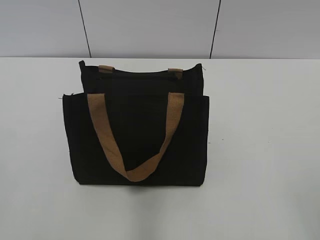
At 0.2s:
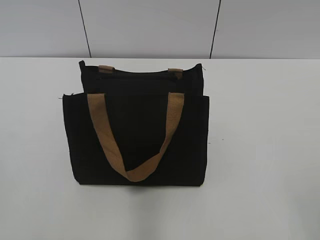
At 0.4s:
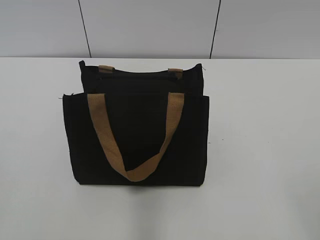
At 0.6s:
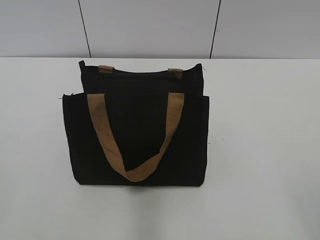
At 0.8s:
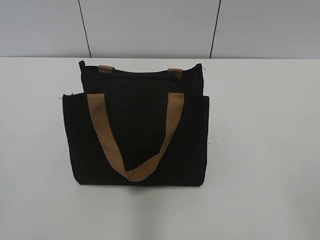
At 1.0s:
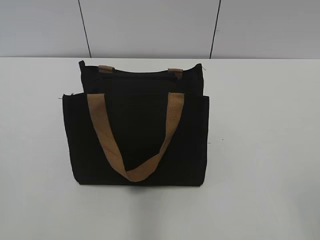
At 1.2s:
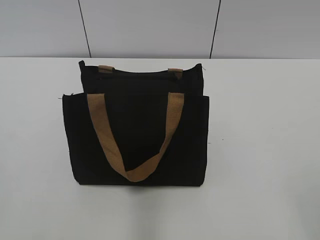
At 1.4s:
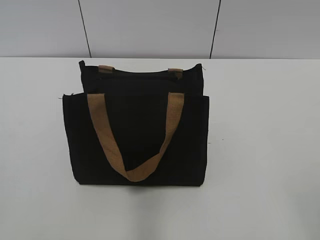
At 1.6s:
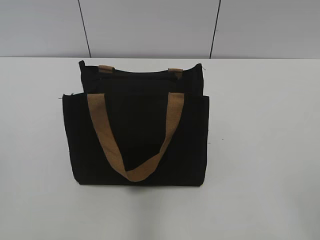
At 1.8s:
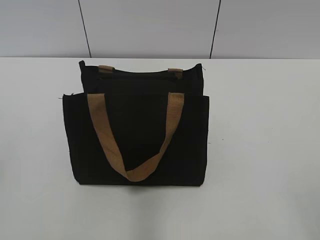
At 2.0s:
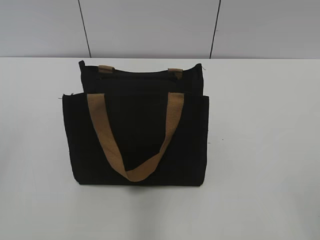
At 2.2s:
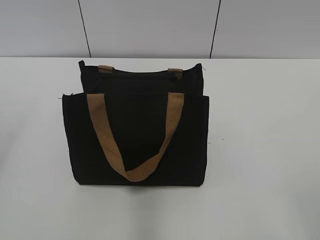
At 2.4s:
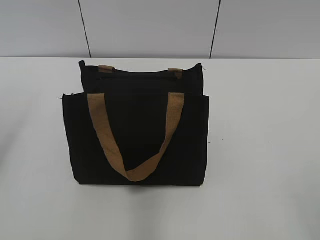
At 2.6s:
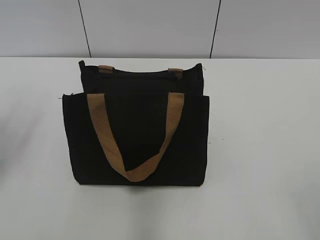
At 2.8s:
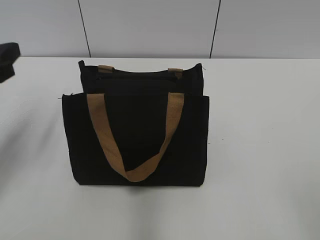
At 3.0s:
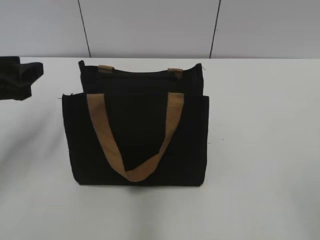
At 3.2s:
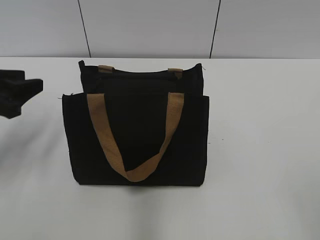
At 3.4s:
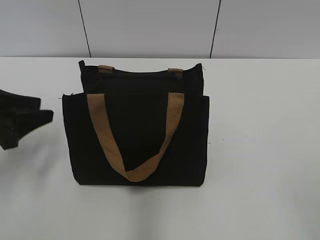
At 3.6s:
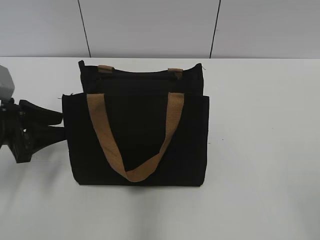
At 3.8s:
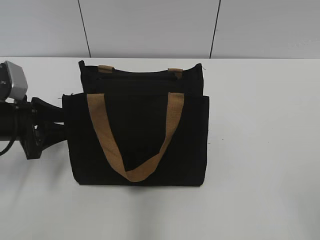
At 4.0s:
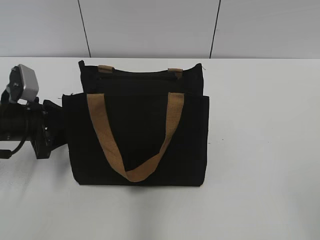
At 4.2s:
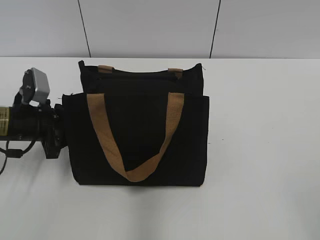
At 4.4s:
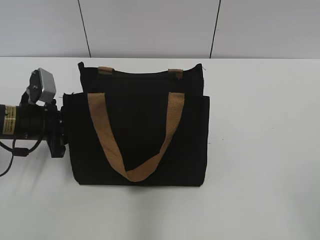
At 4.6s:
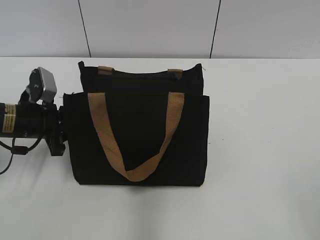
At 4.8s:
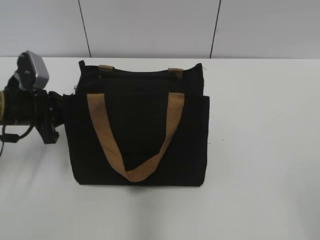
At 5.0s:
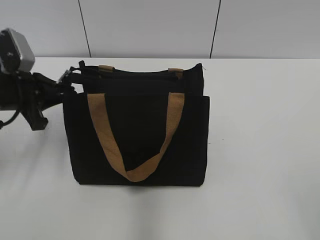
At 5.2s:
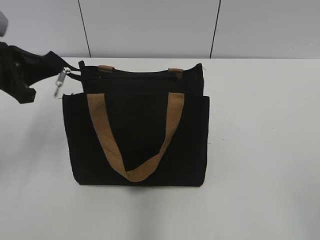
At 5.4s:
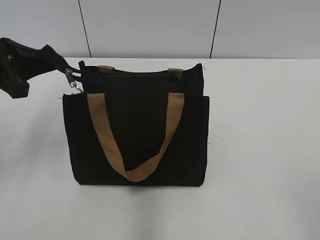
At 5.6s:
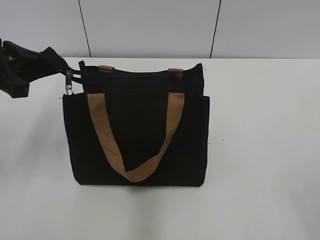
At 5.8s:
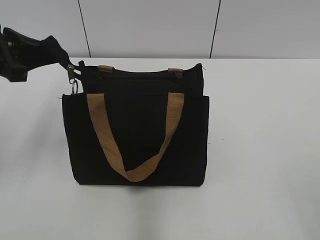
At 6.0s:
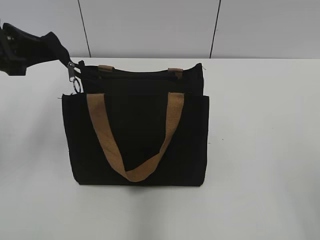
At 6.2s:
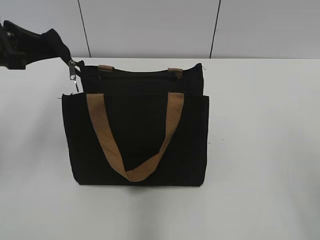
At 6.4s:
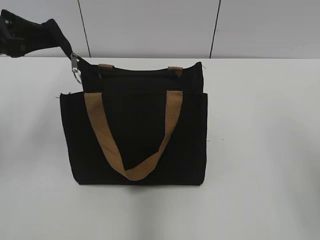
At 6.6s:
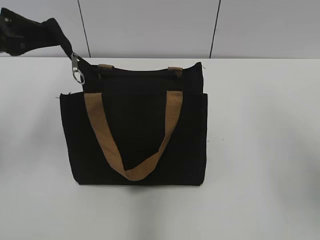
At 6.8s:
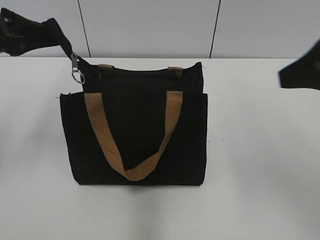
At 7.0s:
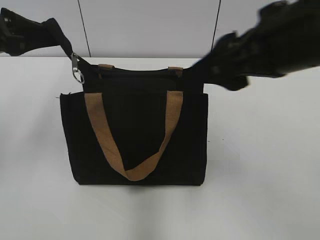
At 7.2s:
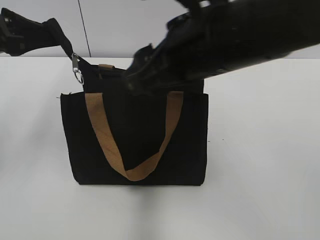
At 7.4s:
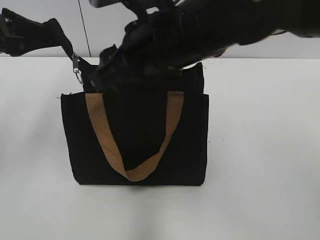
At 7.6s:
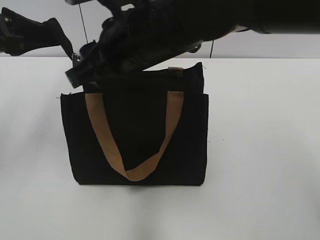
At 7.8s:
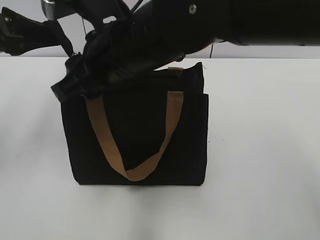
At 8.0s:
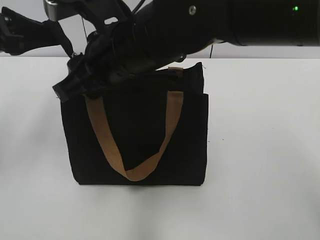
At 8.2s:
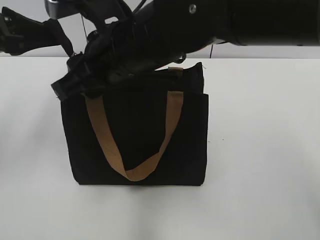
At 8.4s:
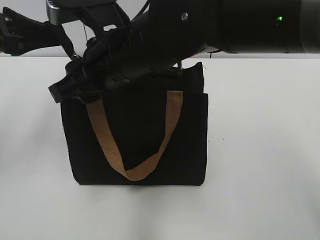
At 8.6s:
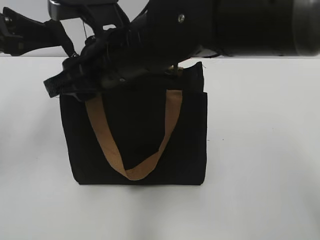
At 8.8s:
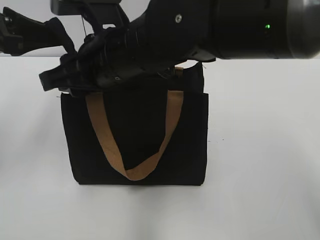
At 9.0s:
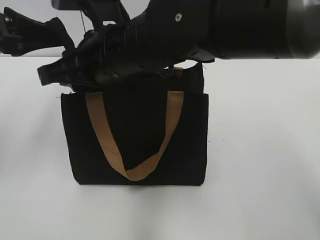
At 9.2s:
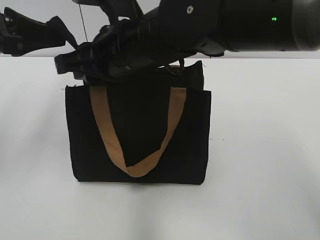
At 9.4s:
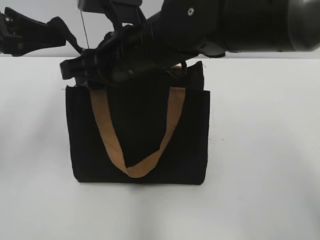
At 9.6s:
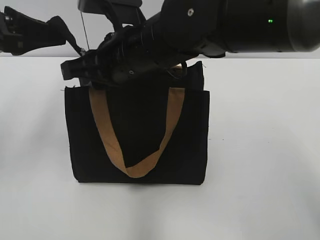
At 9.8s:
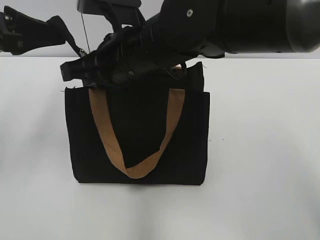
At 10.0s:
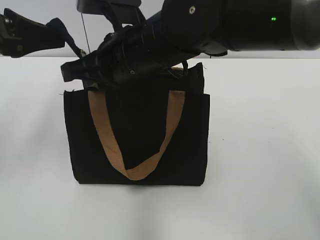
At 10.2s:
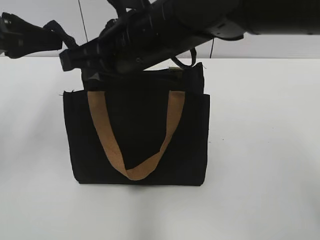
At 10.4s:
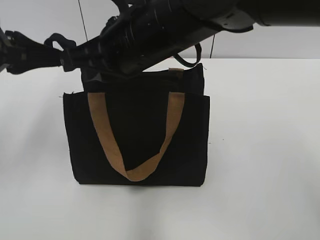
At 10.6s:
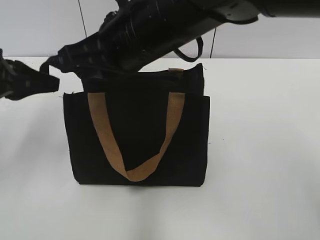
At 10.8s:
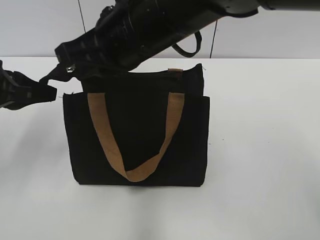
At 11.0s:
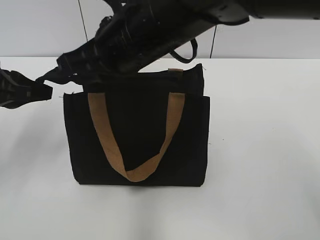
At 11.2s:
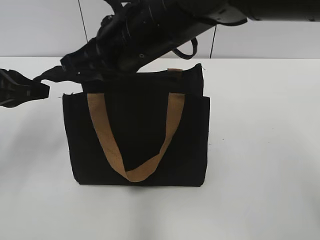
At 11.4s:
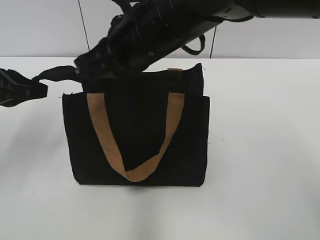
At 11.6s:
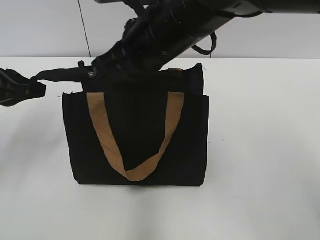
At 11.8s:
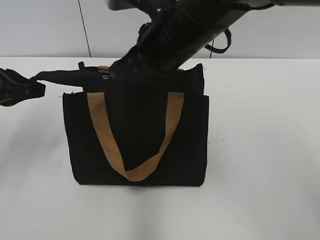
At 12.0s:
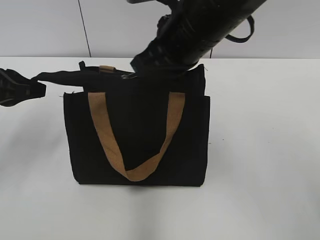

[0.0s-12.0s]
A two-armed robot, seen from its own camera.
1.6s to 3.0s: The left gripper heads forward, covering roughly 25 cm.
3.0s to 4.4s: The left gripper heads downward and forward, covering about 10 cm, and closes its fingers.
4.4s to 6.0s: The left gripper heads upward, covering roughly 15 cm.
6.0s to 7.6s: The right gripper shifts roughly 40 cm to the left and forward.
7.6s to 9.0s: There are only small adjustments of the grippers.
9.0s to 10.4s: The right gripper closes up.
10.4s to 12.0s: The left gripper goes approximately 5 cm downward. The right gripper heads to the right, covering about 5 cm.

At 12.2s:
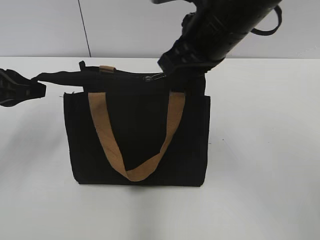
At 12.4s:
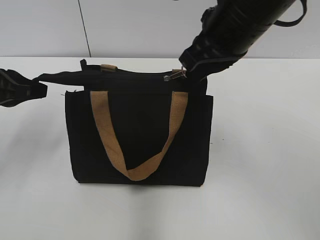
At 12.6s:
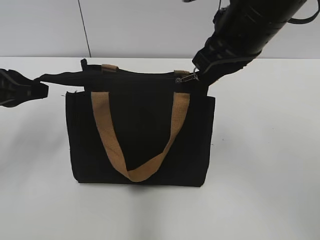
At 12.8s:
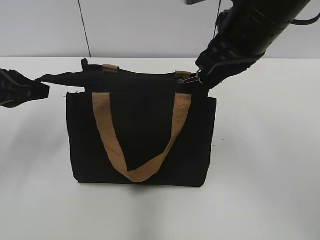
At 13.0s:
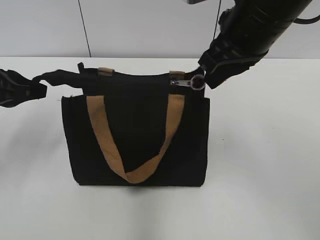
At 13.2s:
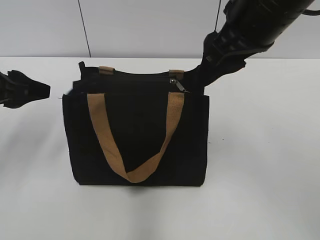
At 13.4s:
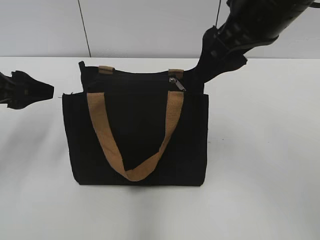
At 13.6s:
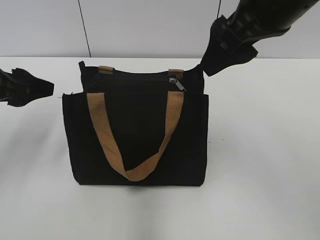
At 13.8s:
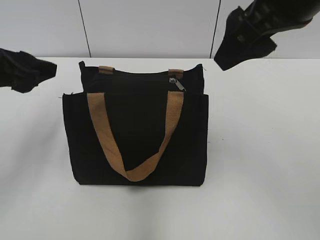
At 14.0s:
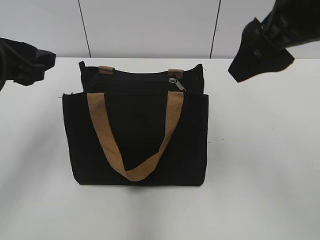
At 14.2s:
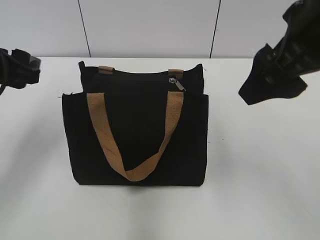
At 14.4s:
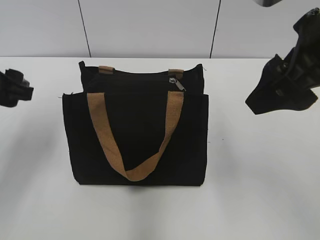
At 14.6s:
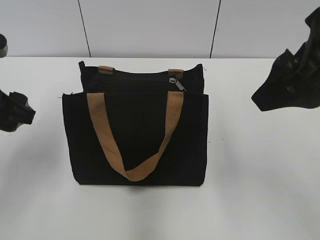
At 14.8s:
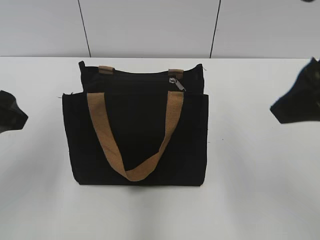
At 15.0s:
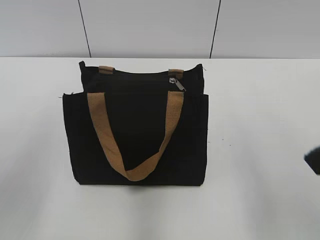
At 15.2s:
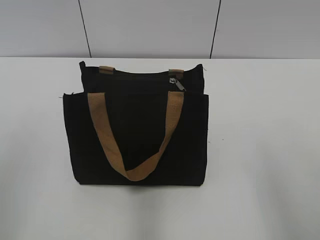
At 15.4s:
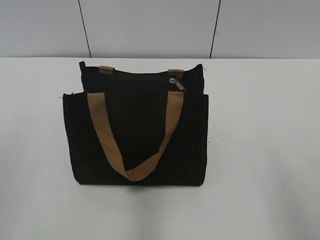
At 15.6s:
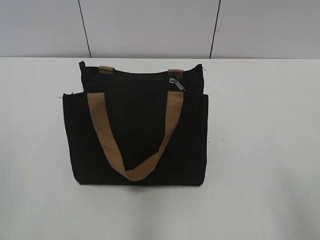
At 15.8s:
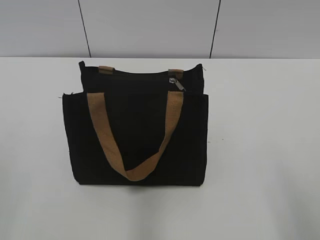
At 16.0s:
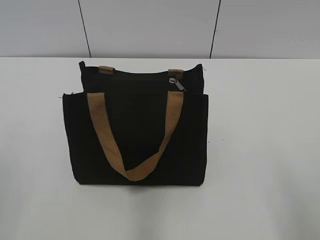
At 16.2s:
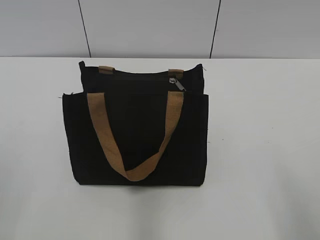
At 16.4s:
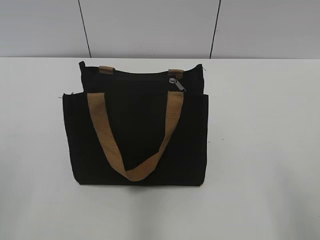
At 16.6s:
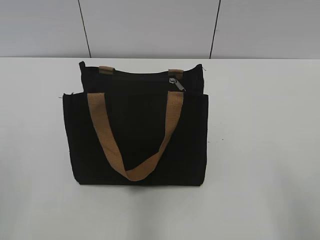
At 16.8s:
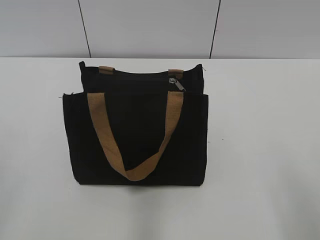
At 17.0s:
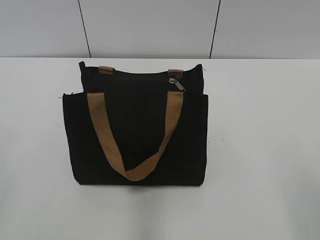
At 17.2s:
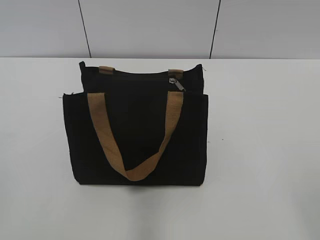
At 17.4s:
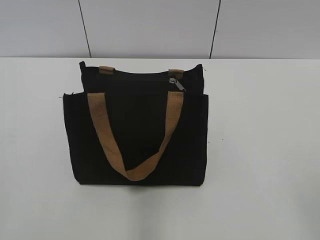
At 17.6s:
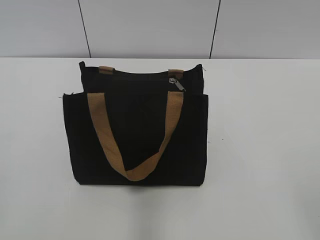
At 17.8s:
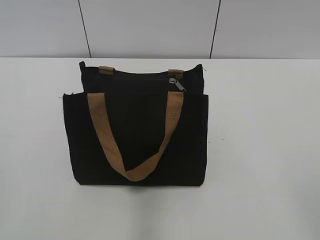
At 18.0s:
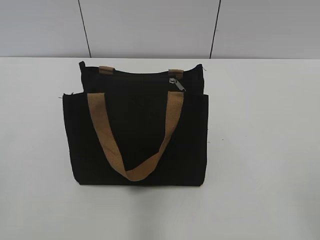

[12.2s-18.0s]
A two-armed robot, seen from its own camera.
12.2s to 13.6s: The right gripper is displaced upward and to the right by about 5 cm, and opens; the left gripper opens up.
13.6s to 15.0s: The right gripper travels backward and to the right by roughly 15 cm; the left gripper heads backward and upward, covering approximately 15 cm.
15.0s to 16.6s: The left gripper goes approximately 15 cm backward and to the left. The right gripper moves backward, downward and to the right, roughly 15 cm.

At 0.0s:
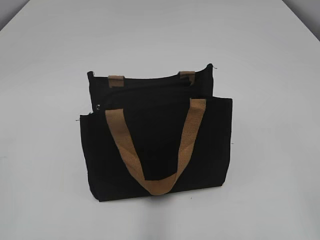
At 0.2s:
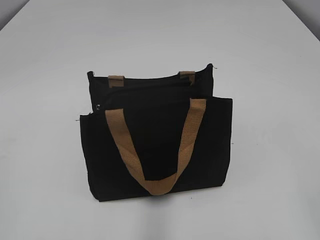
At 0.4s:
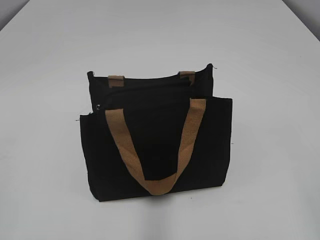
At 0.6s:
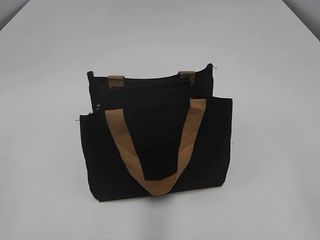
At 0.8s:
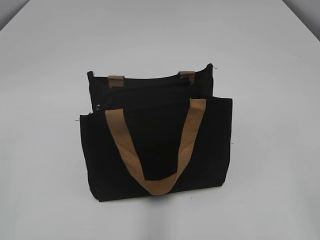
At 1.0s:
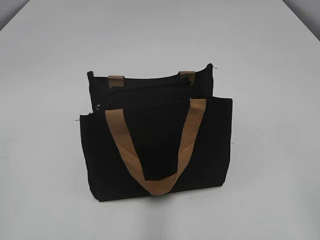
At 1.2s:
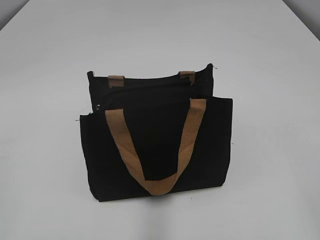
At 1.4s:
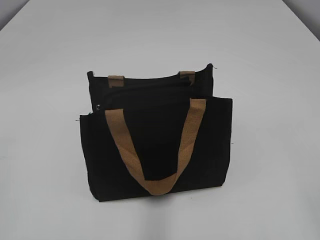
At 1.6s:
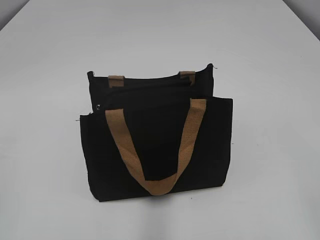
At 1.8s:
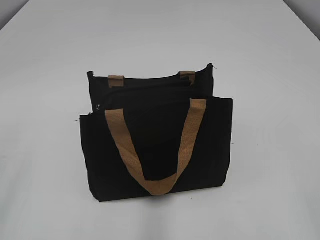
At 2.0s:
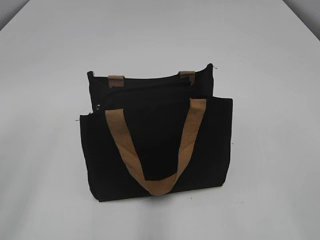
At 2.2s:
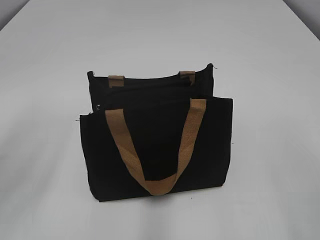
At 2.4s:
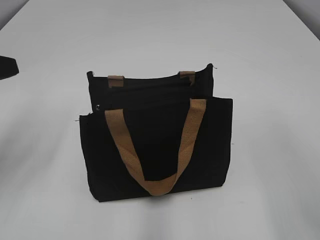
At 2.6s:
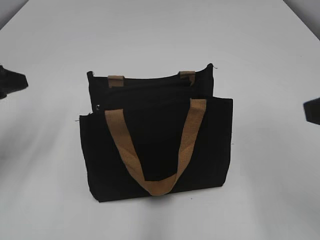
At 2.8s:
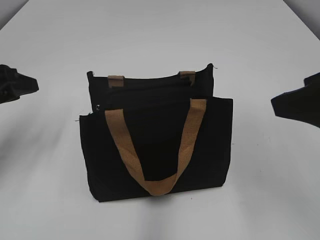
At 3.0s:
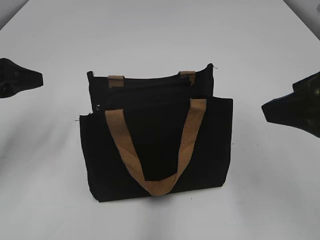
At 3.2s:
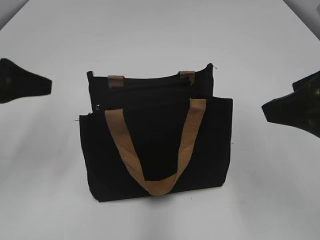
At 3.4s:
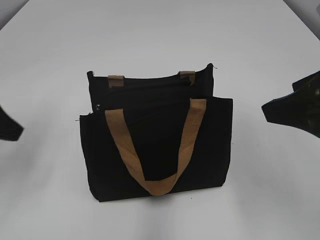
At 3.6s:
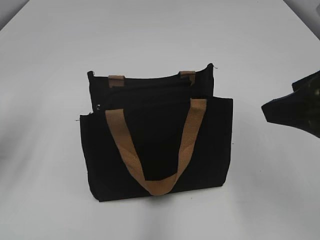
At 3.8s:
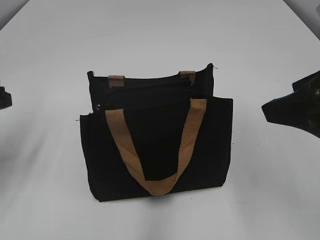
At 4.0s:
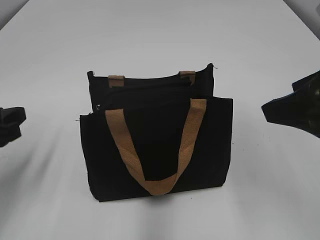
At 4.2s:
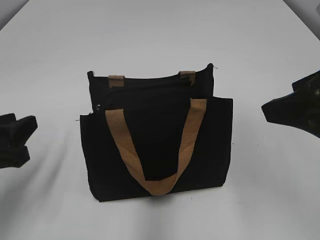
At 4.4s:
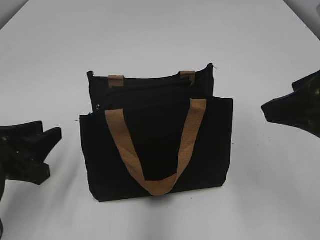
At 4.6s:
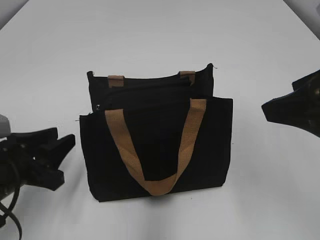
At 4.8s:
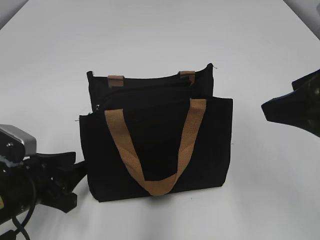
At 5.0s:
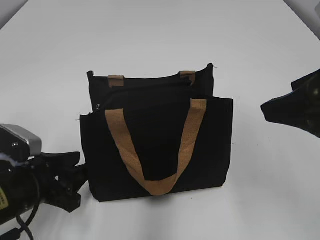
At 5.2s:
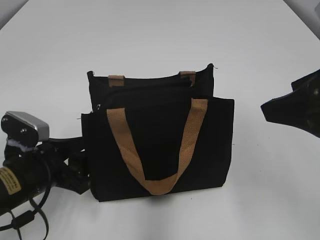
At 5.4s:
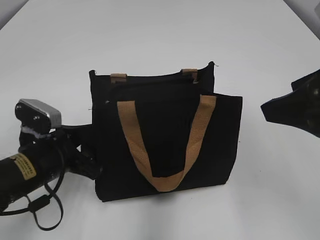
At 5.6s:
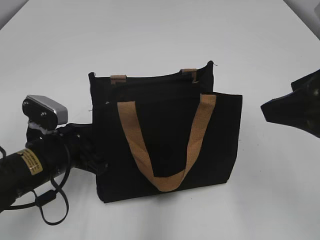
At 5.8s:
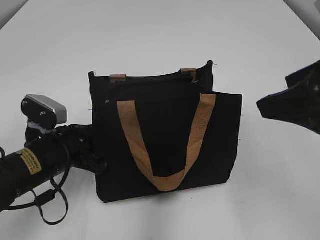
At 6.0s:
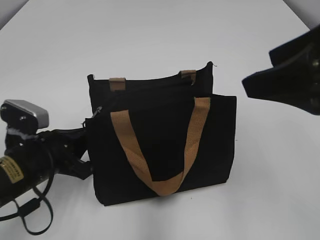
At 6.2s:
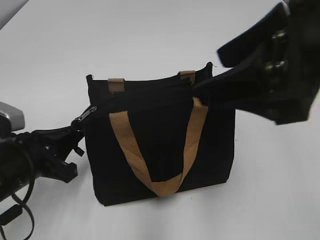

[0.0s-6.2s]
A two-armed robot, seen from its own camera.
1.6s to 3.2s: The left gripper is displaced forward by approximately 25 cm. Meanwhile the right gripper heads forward and to the left, covering roughly 20 cm.
3.2s to 4.6s: The left gripper shifts some 15 cm downward and backward.
4.6s to 6.2s: The right gripper heads to the left, covering approximately 5 cm, while the left gripper closes.
